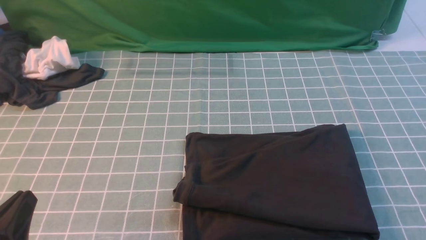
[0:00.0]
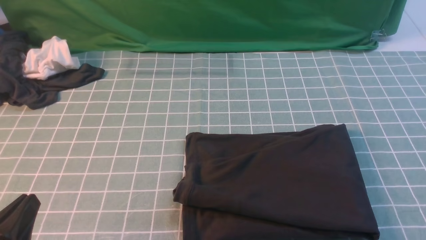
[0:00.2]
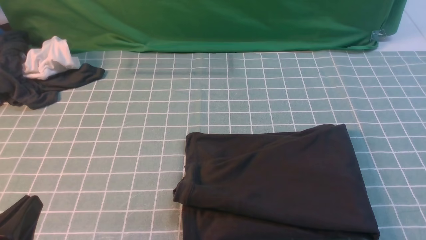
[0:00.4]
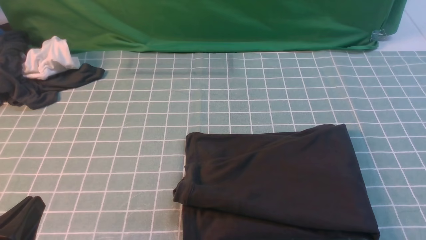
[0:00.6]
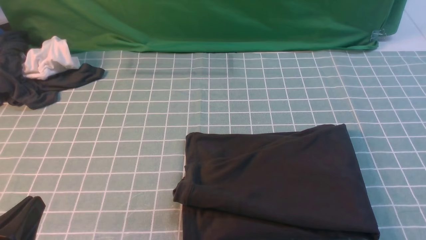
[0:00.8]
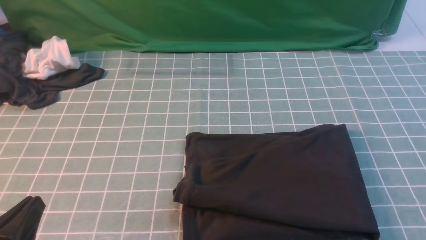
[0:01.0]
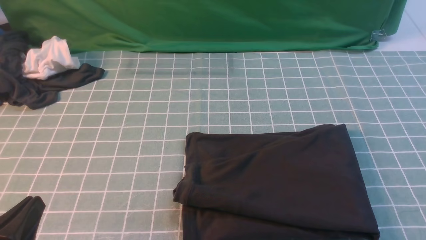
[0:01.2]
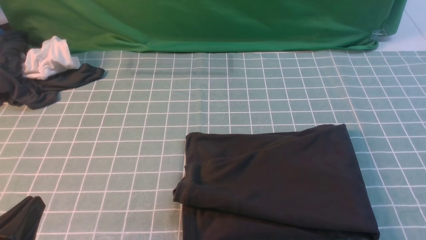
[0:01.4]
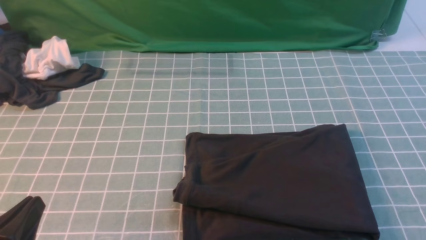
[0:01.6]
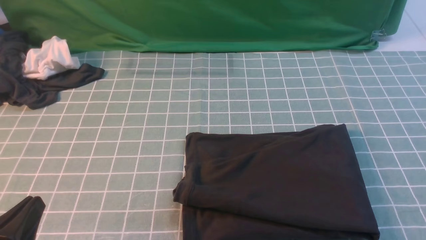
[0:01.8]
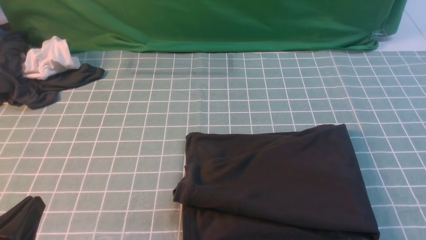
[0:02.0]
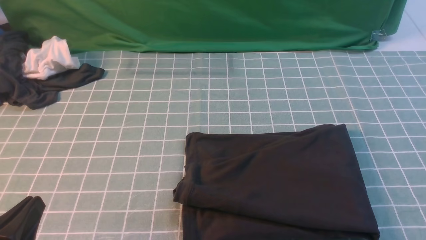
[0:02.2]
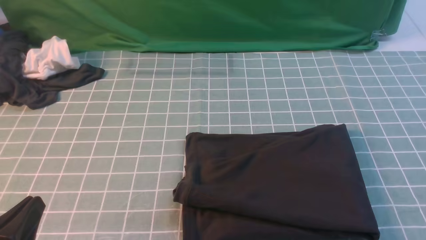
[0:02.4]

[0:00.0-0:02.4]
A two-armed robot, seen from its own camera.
0:00.0 to 0:02.4: Neither gripper changes place.

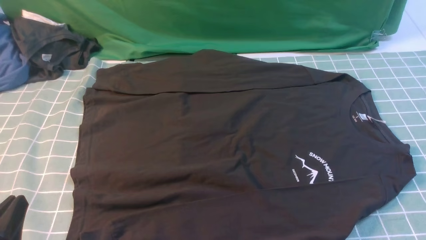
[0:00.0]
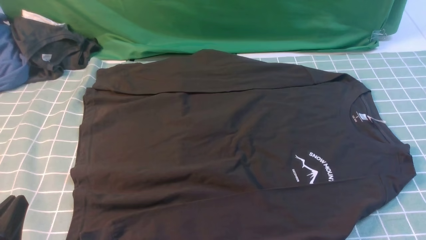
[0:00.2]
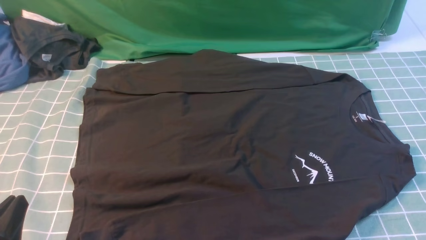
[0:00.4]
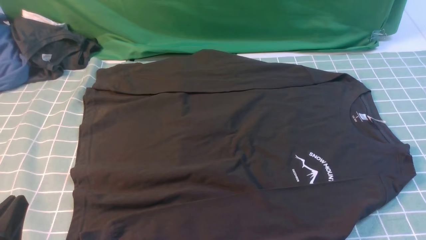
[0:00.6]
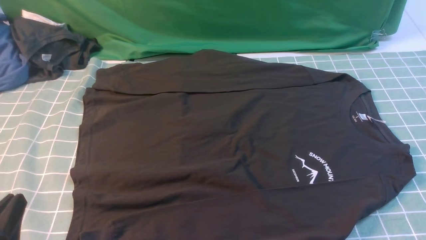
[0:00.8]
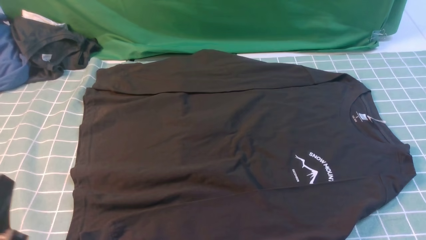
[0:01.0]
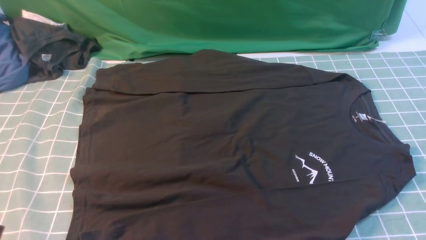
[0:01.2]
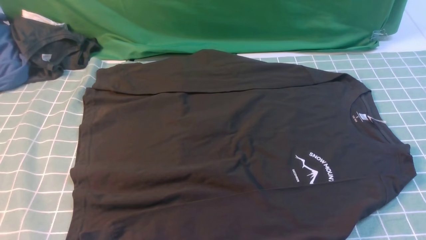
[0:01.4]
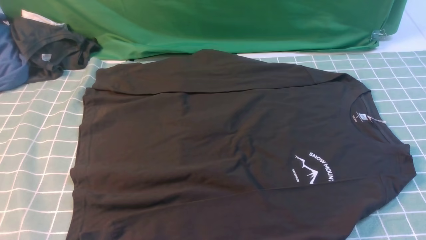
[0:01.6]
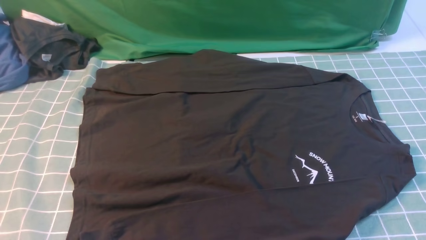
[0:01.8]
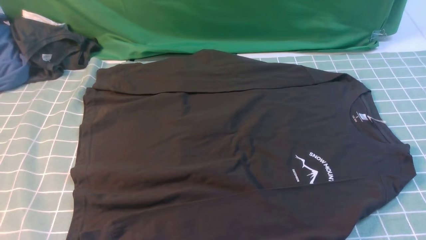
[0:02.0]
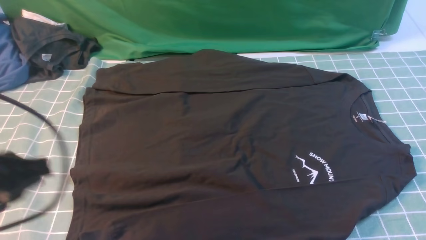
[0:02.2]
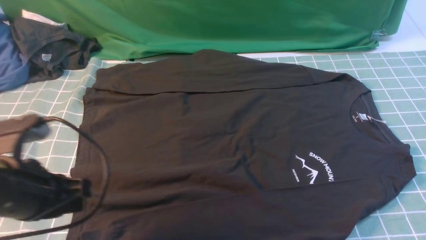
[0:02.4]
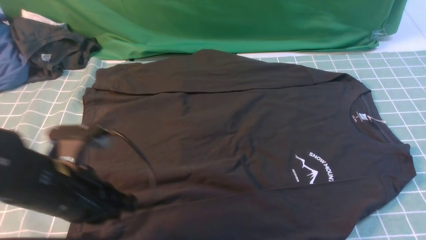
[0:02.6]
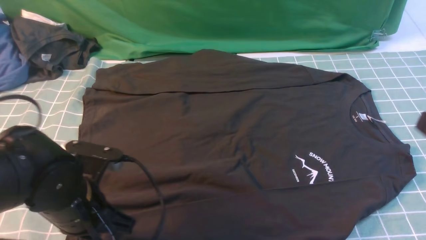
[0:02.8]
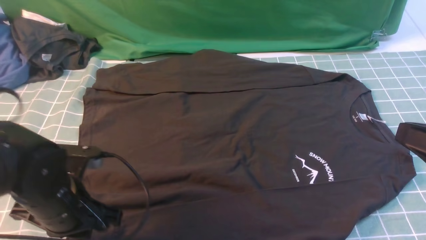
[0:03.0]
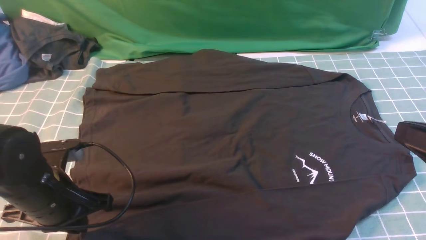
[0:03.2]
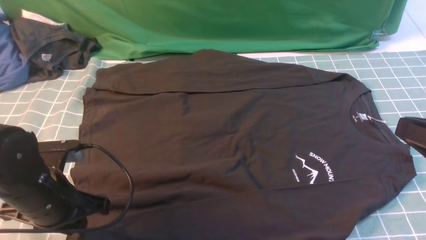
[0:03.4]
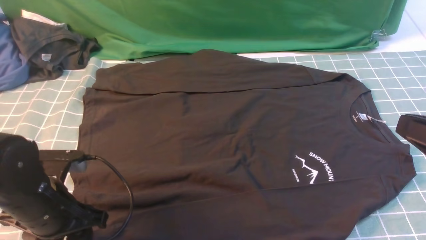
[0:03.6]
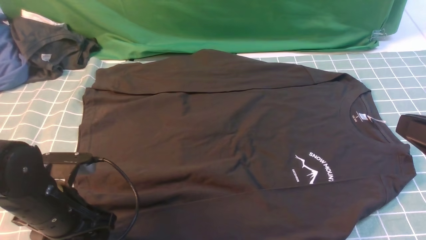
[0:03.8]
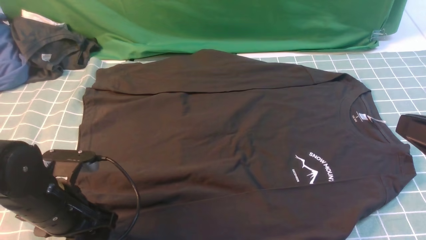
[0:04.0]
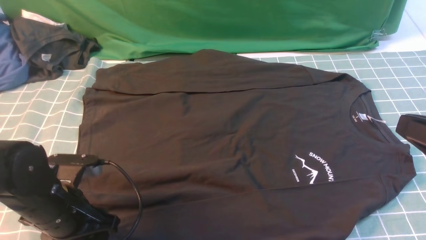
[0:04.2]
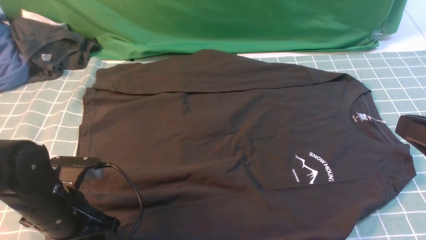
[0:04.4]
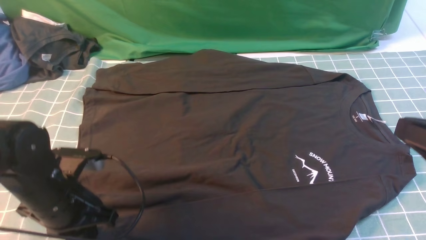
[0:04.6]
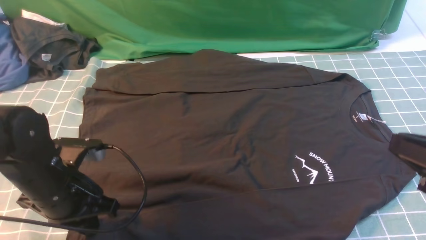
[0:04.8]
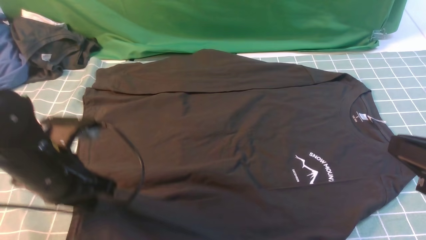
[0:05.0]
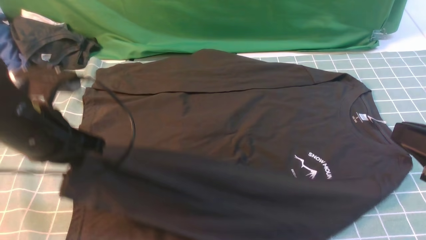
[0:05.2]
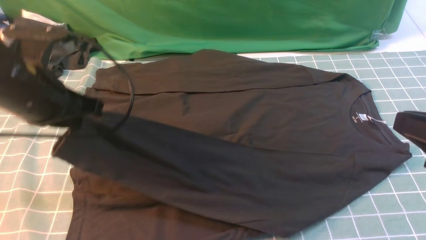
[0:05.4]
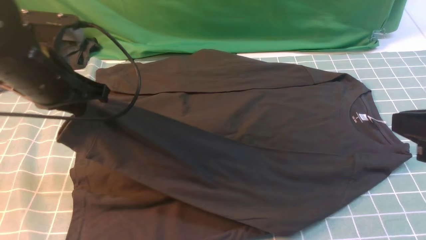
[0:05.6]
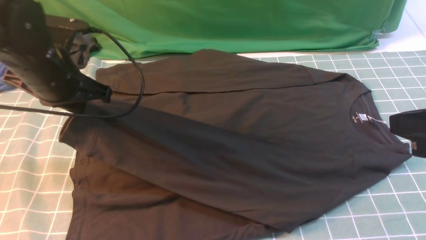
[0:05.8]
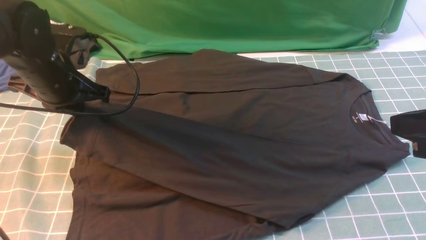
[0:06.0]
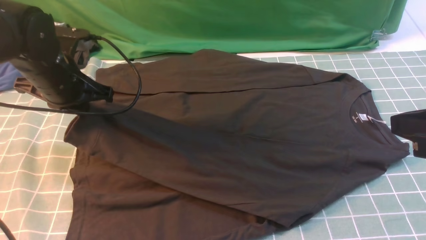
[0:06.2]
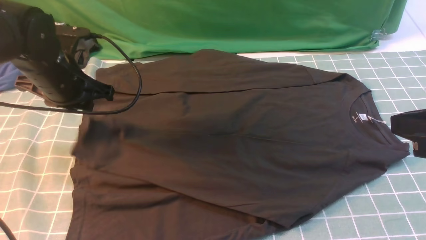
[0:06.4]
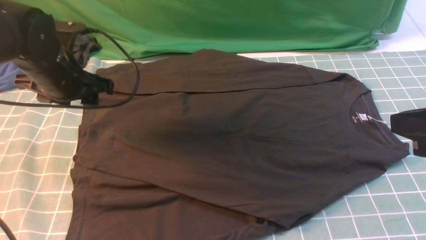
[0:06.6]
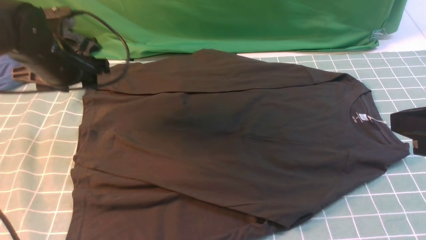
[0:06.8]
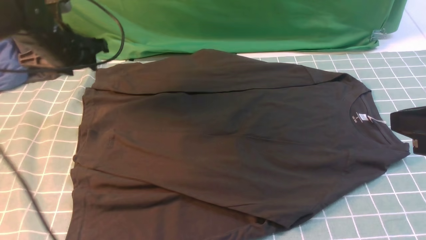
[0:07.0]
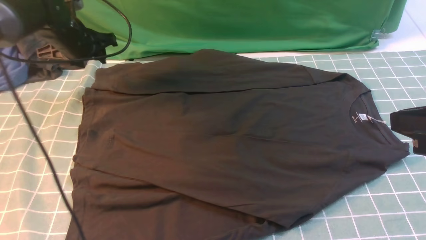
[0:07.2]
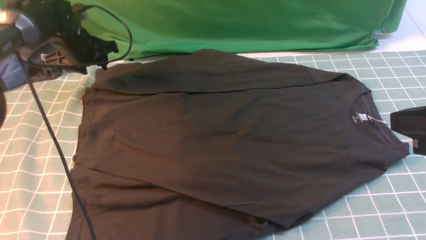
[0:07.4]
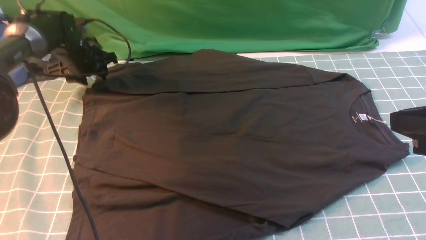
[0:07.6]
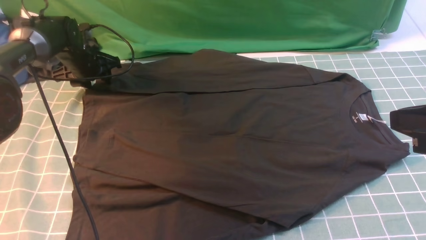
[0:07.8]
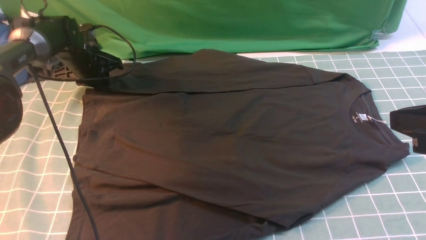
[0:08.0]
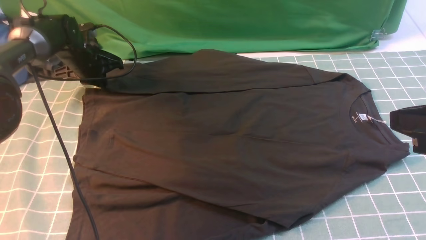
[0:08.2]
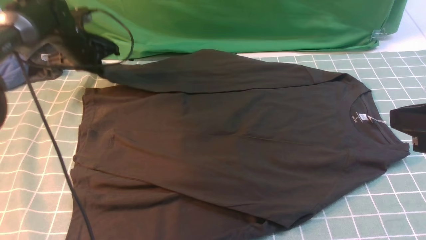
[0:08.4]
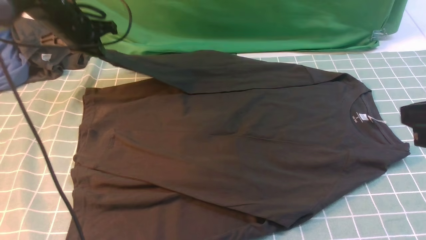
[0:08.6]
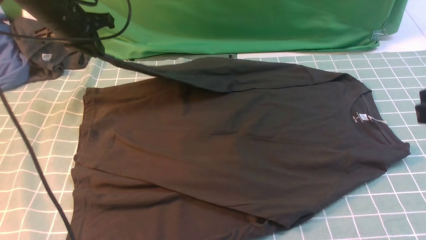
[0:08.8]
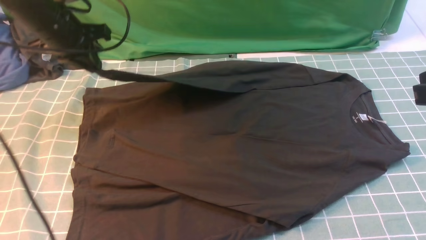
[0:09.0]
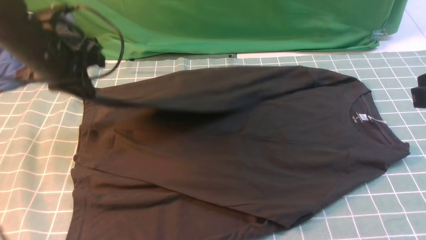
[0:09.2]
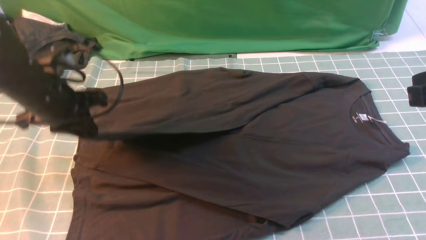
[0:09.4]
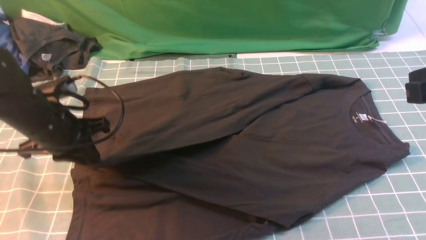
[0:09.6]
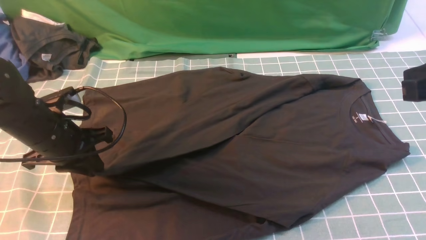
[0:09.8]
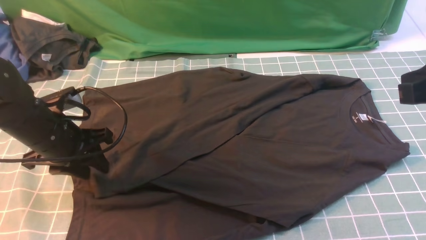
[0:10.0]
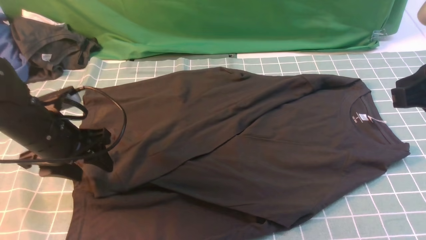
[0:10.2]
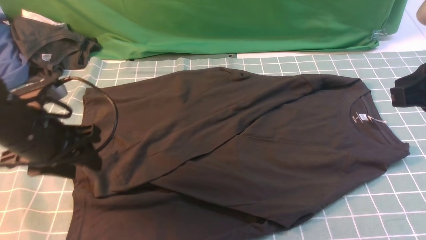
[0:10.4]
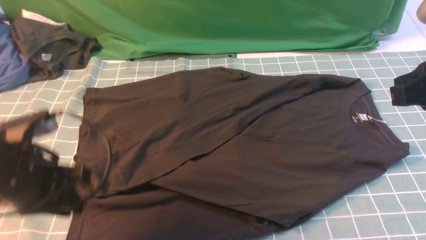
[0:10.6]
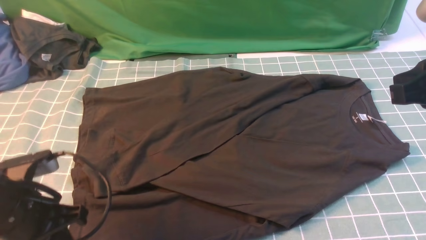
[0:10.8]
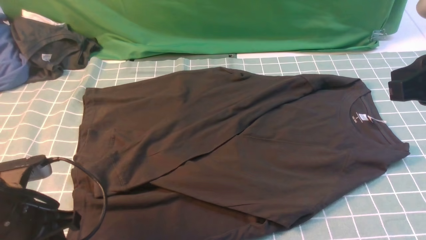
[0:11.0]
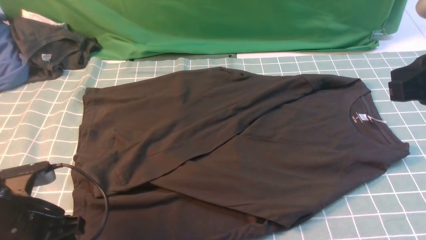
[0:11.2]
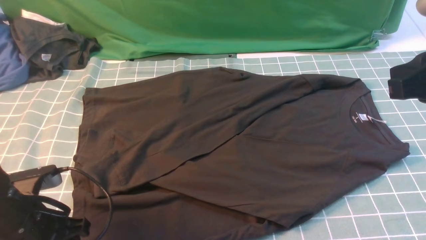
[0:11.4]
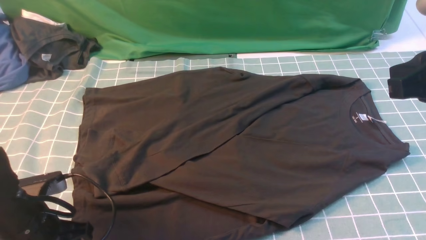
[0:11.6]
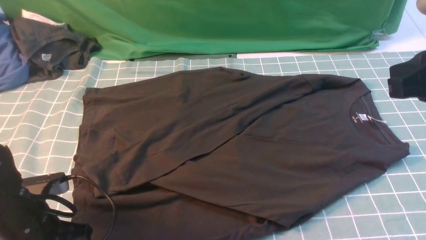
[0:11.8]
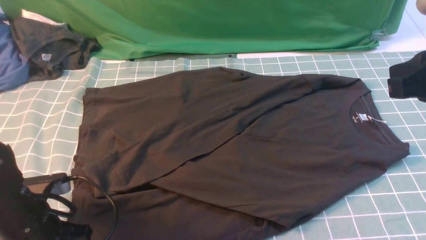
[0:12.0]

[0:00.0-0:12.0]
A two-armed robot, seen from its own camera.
Step, 0:00.0 to 0:04.6: use the left arm to clamp the cuff closest to it.
Step, 0:04.8 to 0:06.6: use the left arm to drag and place the cuff at the centered position on the left edge of the fabric.
Step, 0:06.8 to 0:08.2: use the left arm to clamp the cuff farthest from it.
Step, 0:08.4 to 0:10.2: use the left arm to drag and drop the cuff onto the cuff closest to the left arm.
0:00.0 to 0:01.6: The left gripper is displaced upward by about 10 cm.
0:01.6 to 0:03.0: The left gripper shifts approximately 20 cm forward and downward. Meanwhile the right gripper is displaced upward, forward and to the left by approximately 15 cm, and closes its fingers.
0:03.0 to 0:04.4: The left gripper opens its fingers.
0:04.4 to 0:06.0: The left gripper is displaced forward and upward by approximately 15 cm, and closes up.
0:06.0 to 0:07.6: The left gripper heads forward and downward, covering roughly 20 cm, and opens up.
0:07.6 to 0:09.0: The left gripper travels upward and backward by some 15 cm, and closes its fingers.
0:09.0 to 0:10.4: The left gripper moves backward, some 15 cm, and opens up.
0:10.4 to 0:12.0: The left gripper heads downward and backward, covering some 10 cm, and closes.

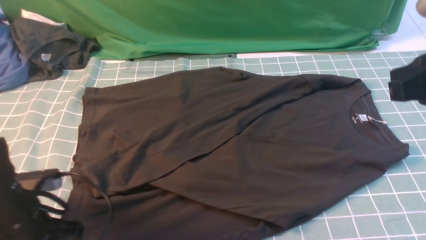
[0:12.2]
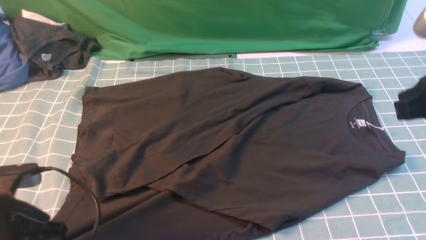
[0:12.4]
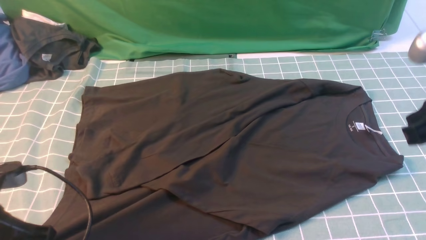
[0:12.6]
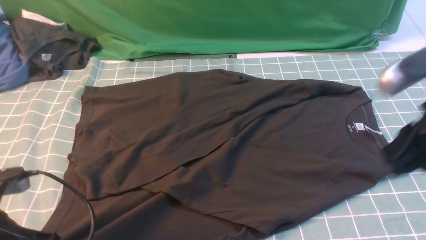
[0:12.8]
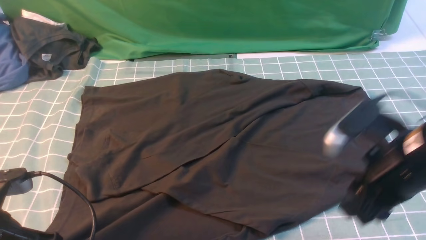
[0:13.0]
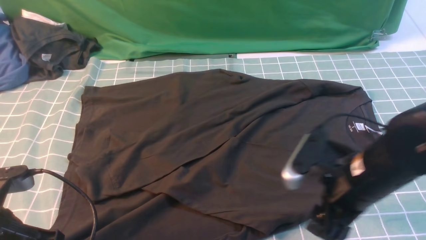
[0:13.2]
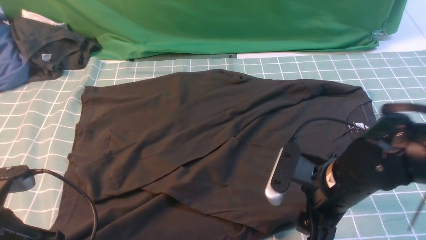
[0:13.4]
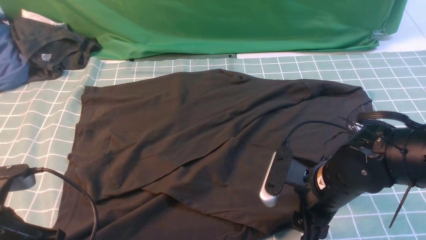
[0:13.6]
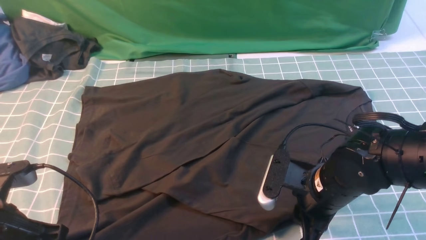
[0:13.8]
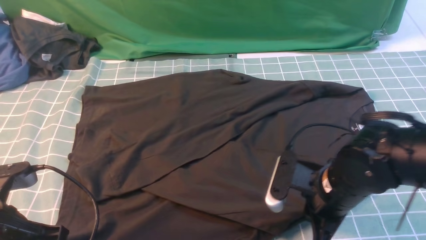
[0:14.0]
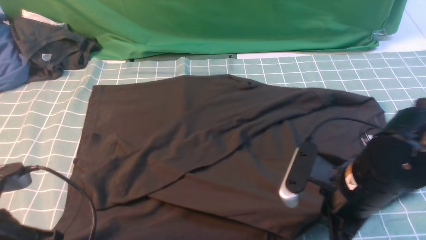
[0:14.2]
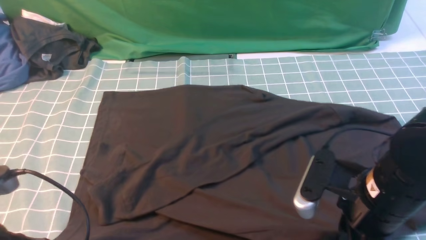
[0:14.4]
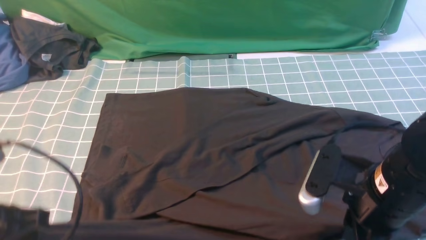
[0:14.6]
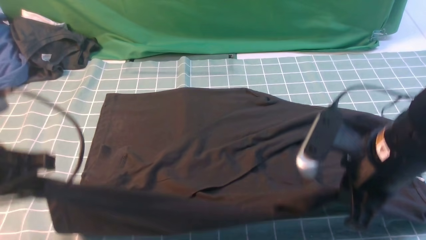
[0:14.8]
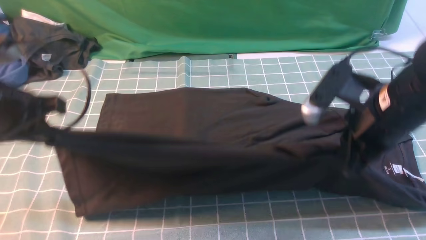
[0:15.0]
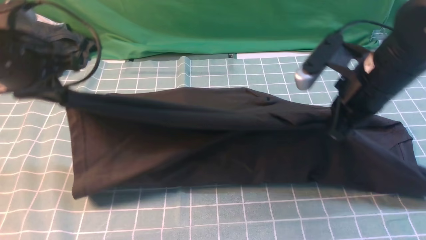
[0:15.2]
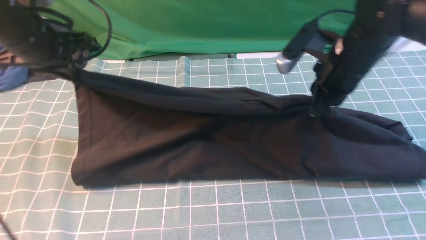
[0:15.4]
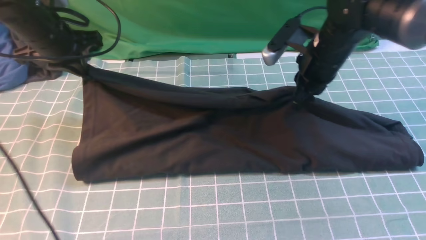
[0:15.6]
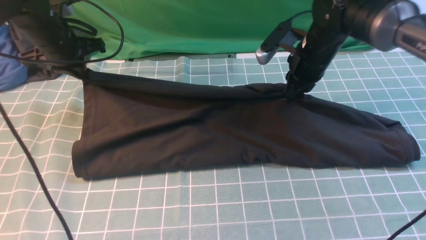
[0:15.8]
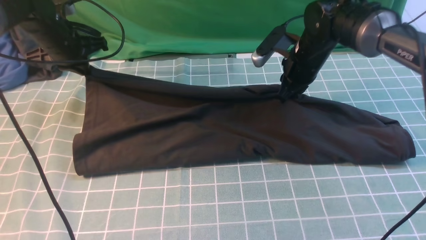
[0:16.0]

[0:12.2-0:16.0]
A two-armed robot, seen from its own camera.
0:12.2 to 0:13.4: The right gripper shifts about 20 cm downward and to the left, and opens its fingers. The left gripper shifts by approximately 5 cm.
0:13.4 to 0:14.8: Both grippers travel together upward, about 10 cm. The right gripper closes.
0:14.8 to 0:16.0: Both grippers travel together forward, about 25 cm.
